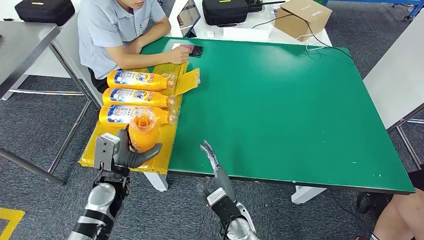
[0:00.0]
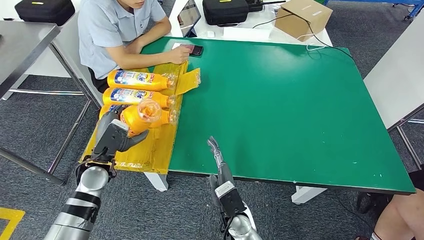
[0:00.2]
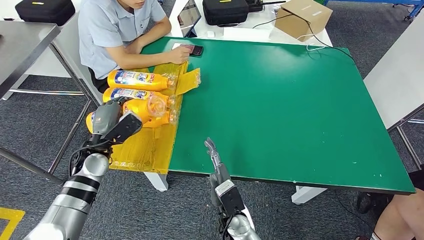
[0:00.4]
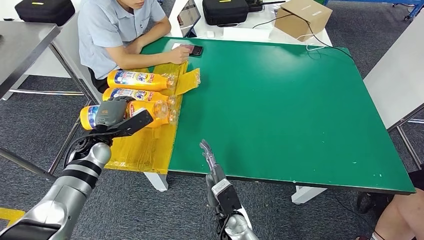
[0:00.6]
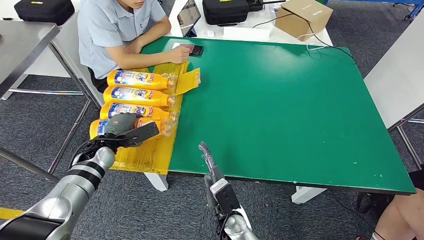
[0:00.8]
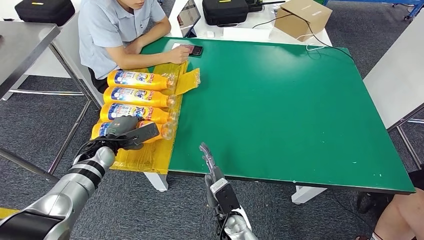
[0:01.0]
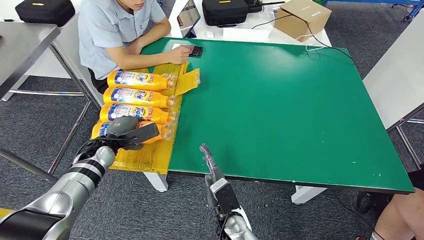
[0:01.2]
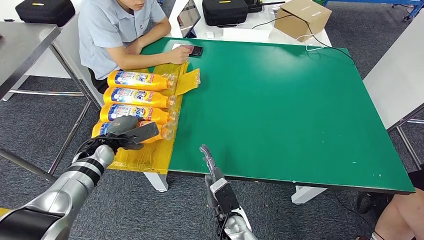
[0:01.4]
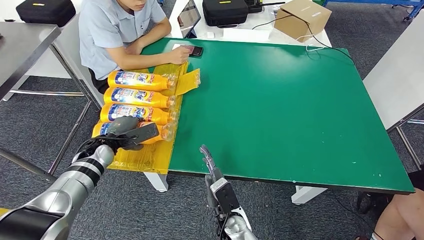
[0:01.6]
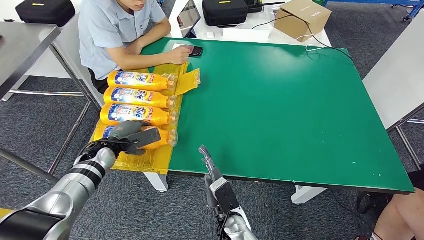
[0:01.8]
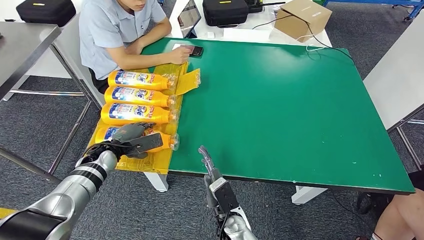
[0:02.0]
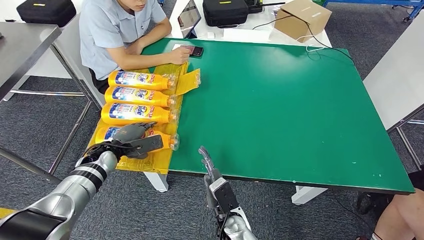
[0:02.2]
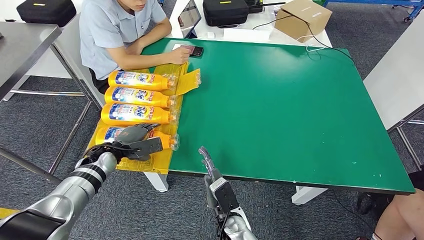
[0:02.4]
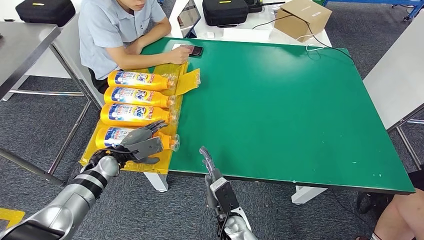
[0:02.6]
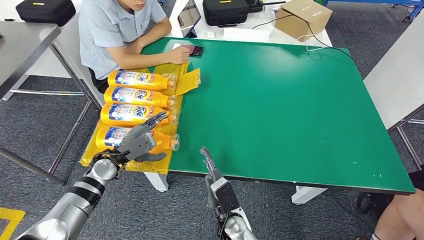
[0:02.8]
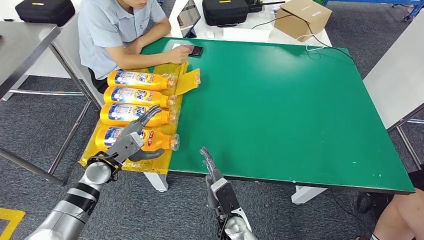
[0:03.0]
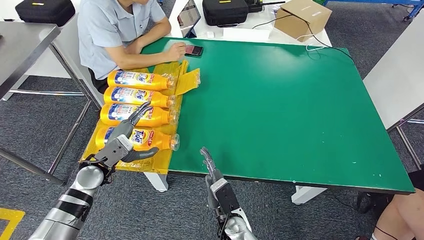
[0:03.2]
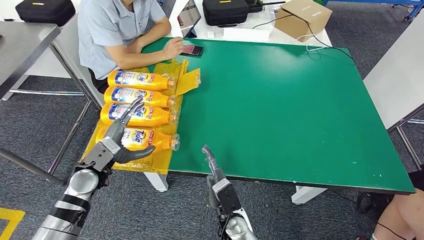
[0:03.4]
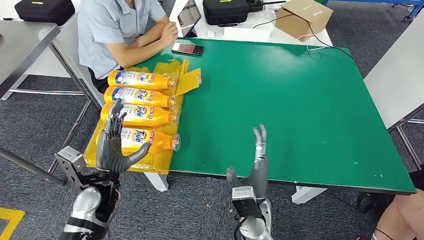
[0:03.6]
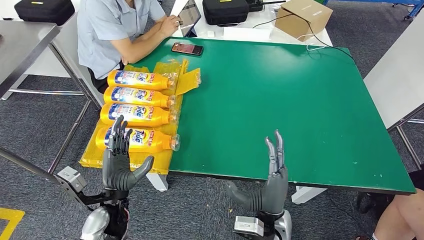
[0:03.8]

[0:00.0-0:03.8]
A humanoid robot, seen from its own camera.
Step, 0:00.0 to 0:03.8: Flip the fast-moving consumer goods bottle to the front side.
0:00.0 to 0:01.2: The left hand moves forward and to the left, roughly 15 cm.
0:02.6 to 0:03.8: The right hand moves upward and to the right, approximately 10 cm, while the left hand goes approximately 15 cm backward and to the right.
